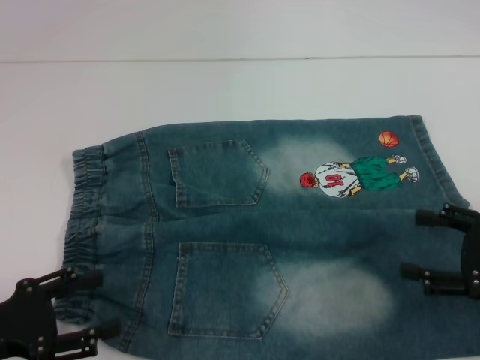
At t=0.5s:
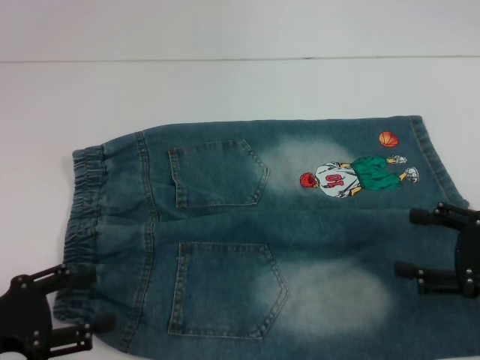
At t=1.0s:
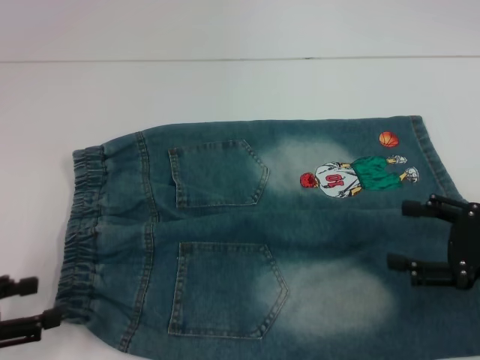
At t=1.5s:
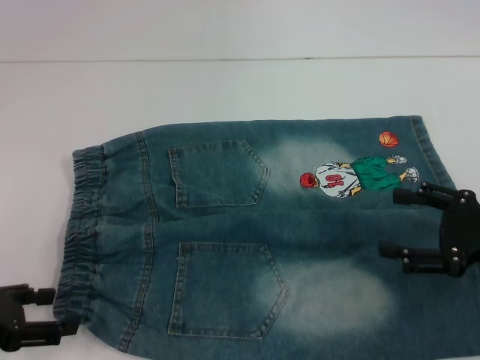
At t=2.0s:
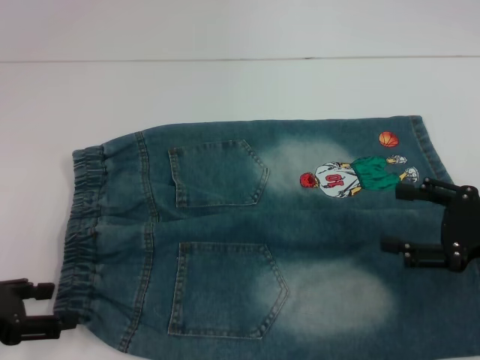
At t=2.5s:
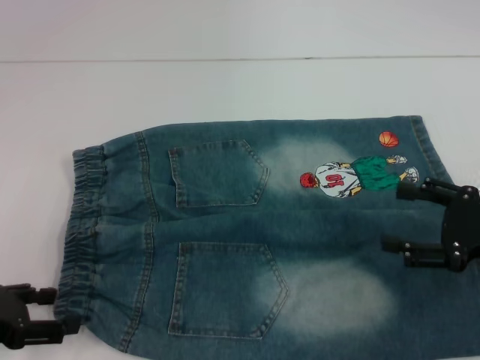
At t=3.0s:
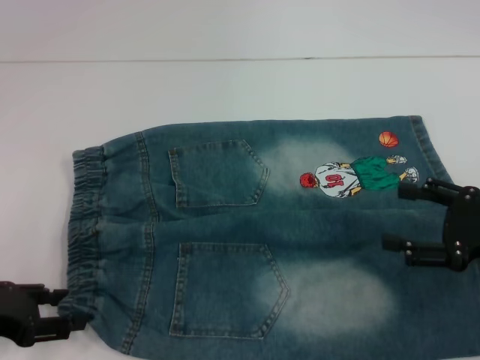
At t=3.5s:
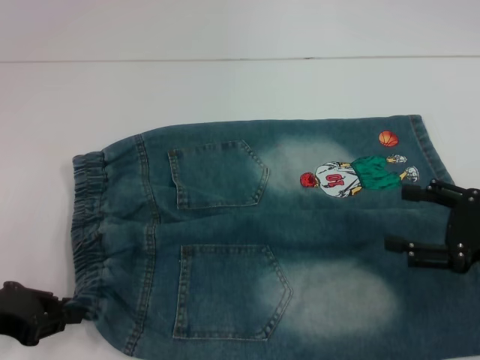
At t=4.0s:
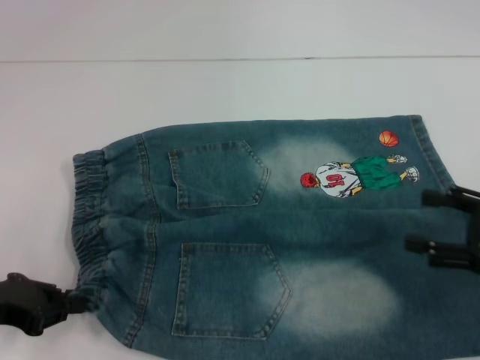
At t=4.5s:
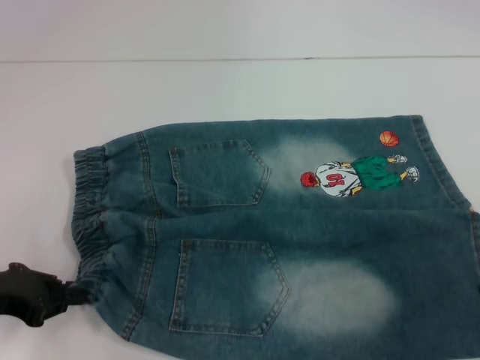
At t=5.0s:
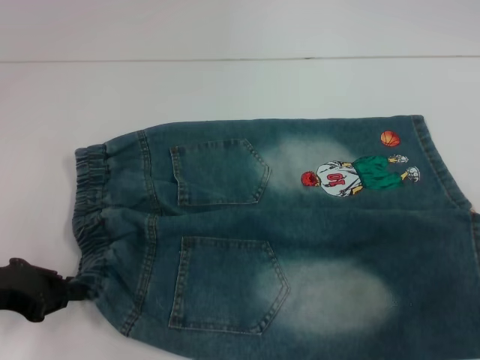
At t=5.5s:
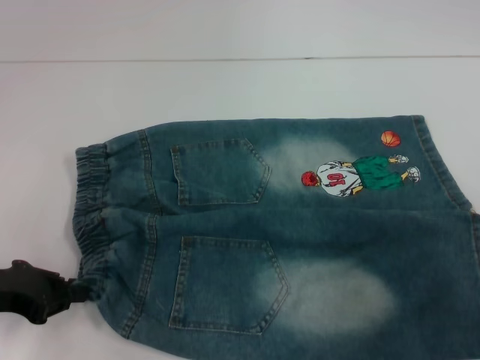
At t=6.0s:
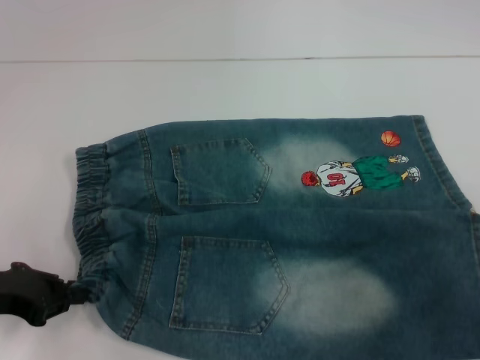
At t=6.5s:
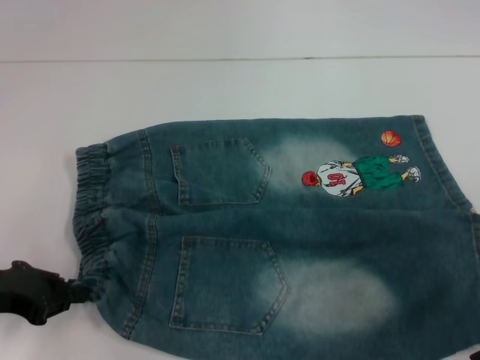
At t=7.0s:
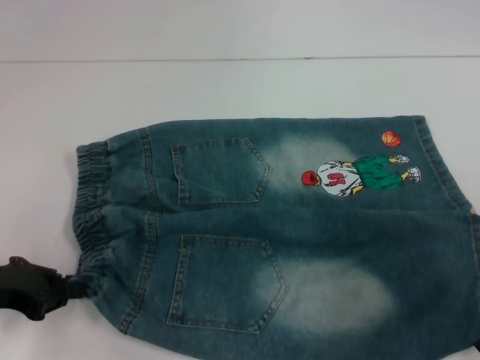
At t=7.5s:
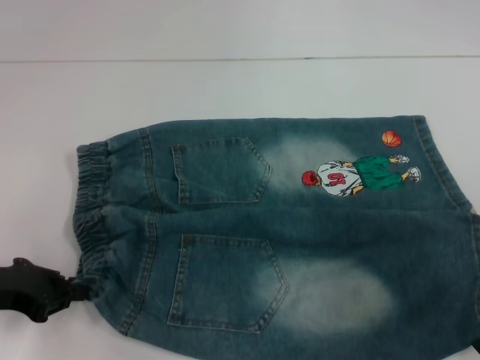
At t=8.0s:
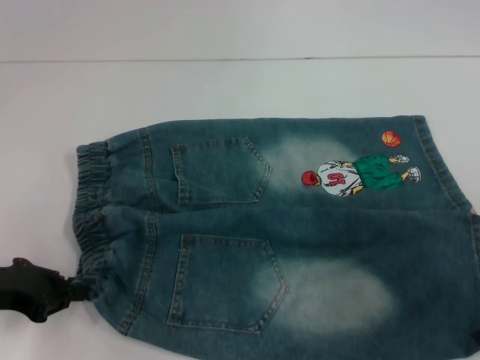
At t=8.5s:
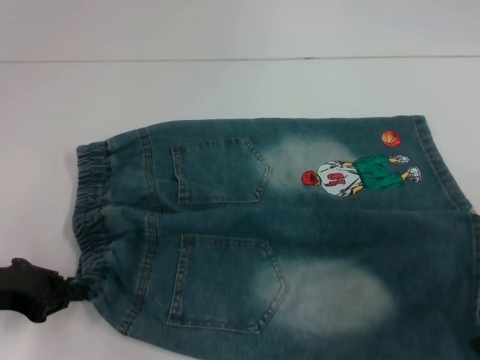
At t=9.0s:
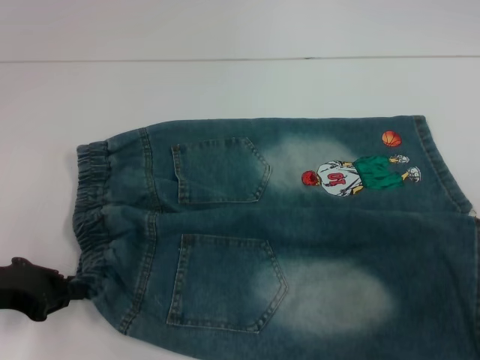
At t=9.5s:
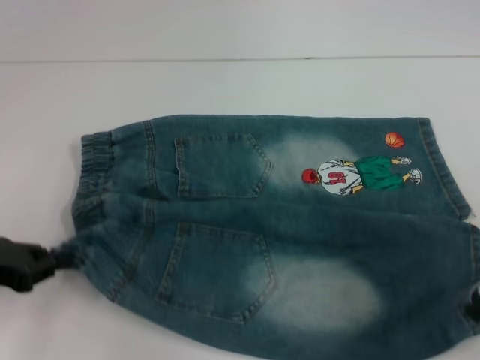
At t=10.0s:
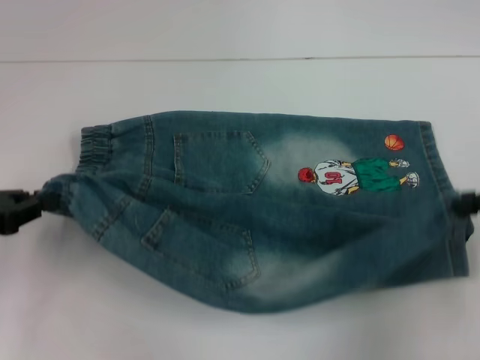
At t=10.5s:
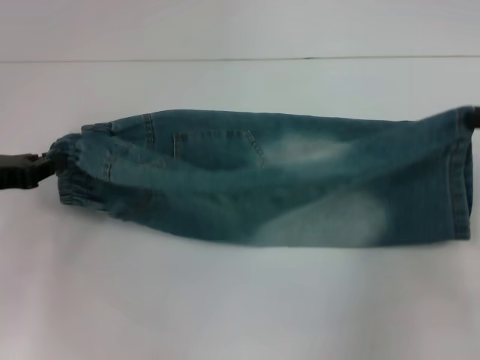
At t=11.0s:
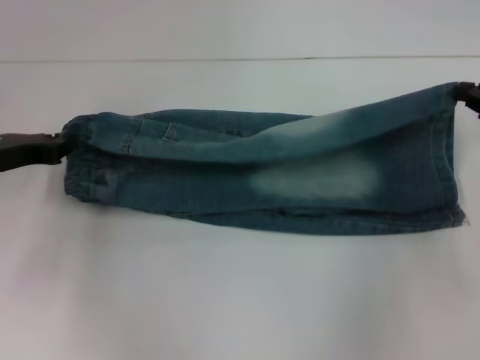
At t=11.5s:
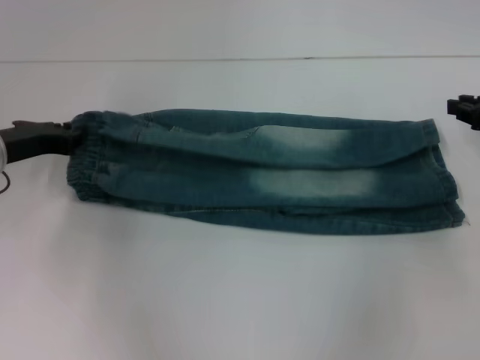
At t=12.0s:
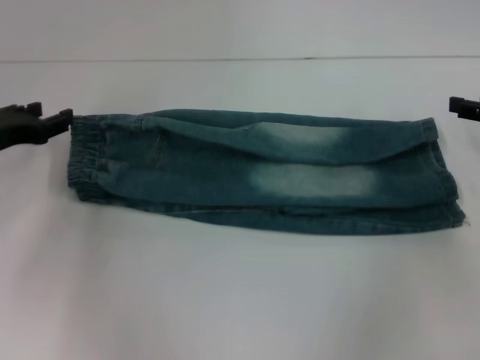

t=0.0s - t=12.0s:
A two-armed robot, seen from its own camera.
Step, t=0.0s - t=3.5s: Hold the lower left waistband with your left hand.
Step, t=4.0s - t=5.5s: Grab the lower right pant leg with your right hand.
Step, t=6.0s - t=11.0s: Fold upward with your right hand.
t=2.0s - t=4.0s: The left gripper closes its fingers.
t=6.0s - t=8.0s: The grippers make only small movements.
t=8.0s - t=10.0s: The left gripper moves approximately 5 cm. Meanwhile the right gripper closes up.
t=10.0s - t=12.0s: Both grippers travel together forward, about 10 cm. The right gripper opens.

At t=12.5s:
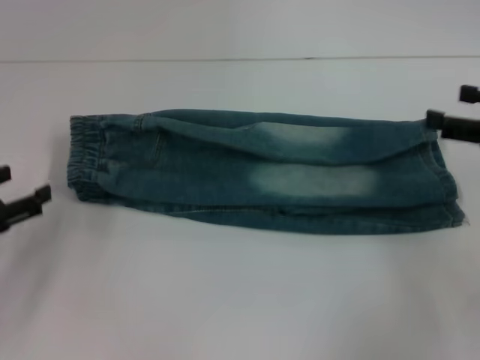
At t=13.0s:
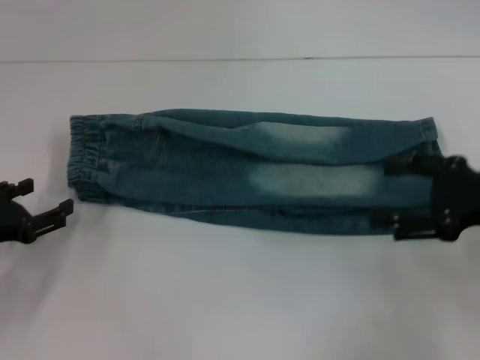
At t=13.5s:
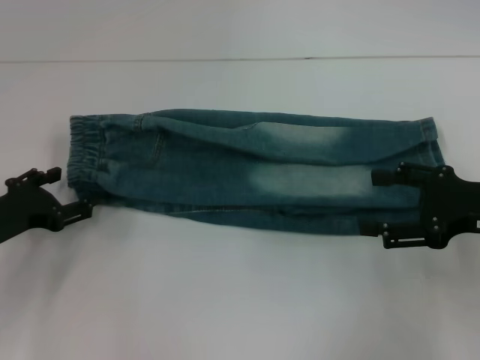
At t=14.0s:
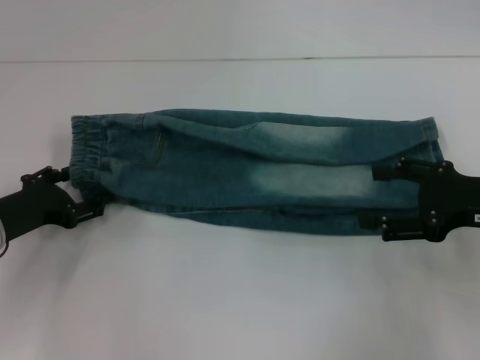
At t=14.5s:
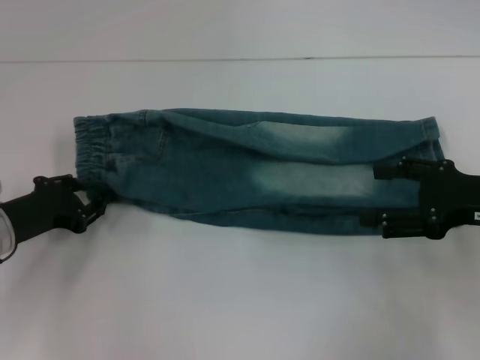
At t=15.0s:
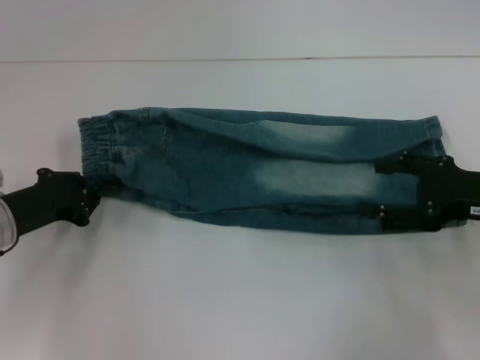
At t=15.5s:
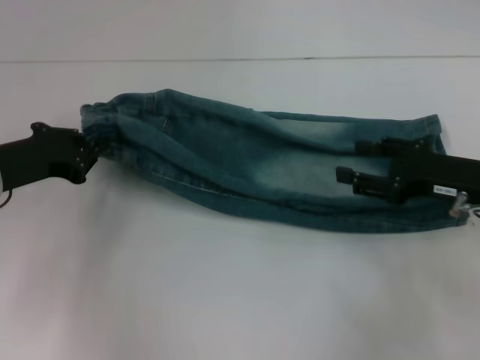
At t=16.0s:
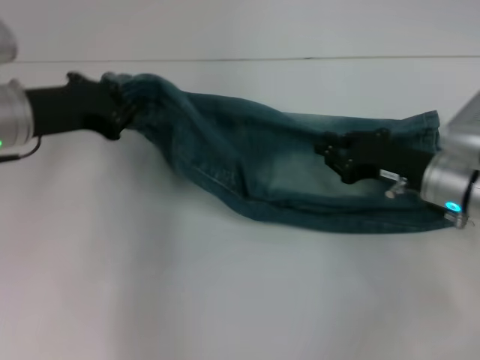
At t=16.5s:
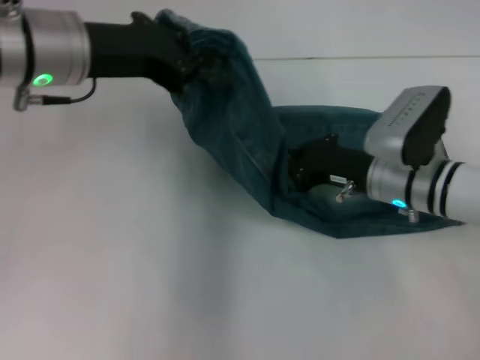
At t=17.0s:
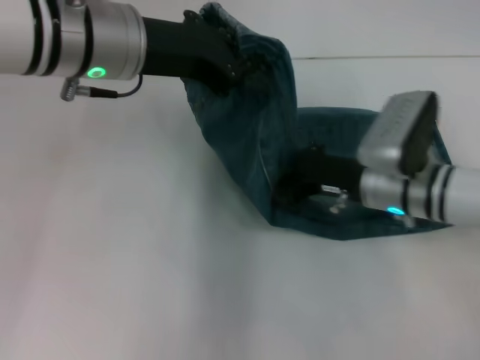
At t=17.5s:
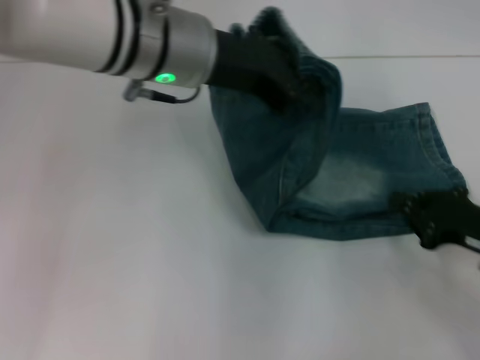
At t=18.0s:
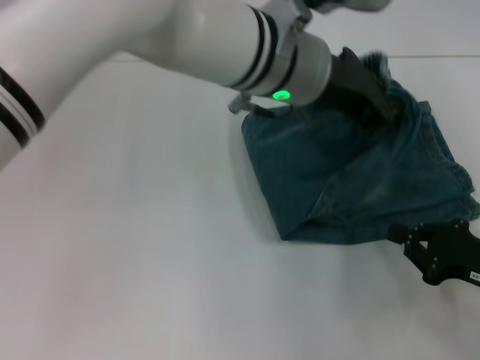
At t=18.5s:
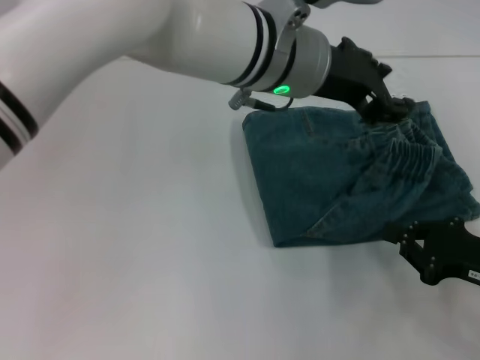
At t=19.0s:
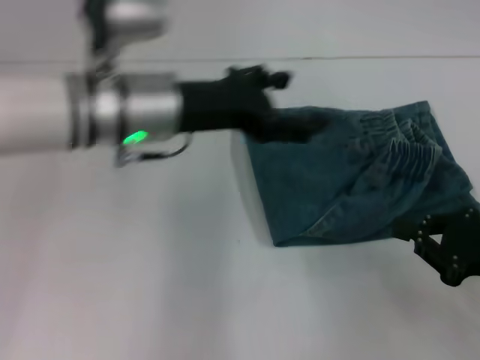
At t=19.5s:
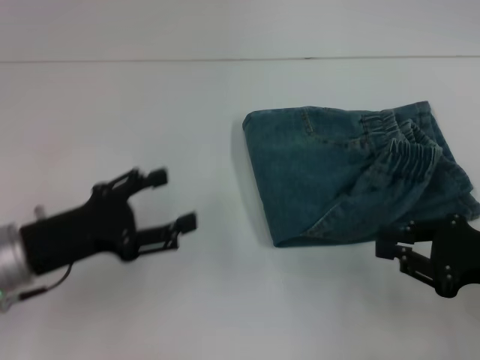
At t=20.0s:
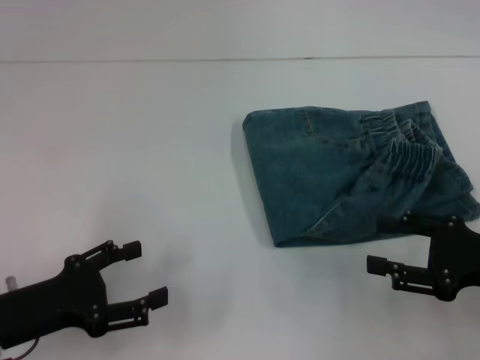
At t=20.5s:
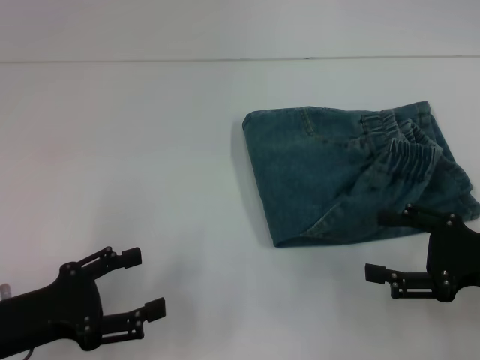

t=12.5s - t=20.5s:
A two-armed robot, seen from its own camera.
Step, t=12.5s - t=14.5s: Hold the waistband with your left hand.
Step, t=15.0s - t=17.0s: Press the middle of the pants with your right hand.
Step, t=17.5s - t=18.0s: Fold to the right with your left hand.
t=12.5s - t=14.5s: The left gripper shifts some 5 cm to the right. The right gripper ends up roughly 5 cm from where it was.
t=14.5s - t=16.5s: The right gripper heads to the left, forward and downward, covering about 15 cm, and closes its fingers. Meanwhile the left gripper heads upward and to the right, covering roughly 20 cm, and closes.
t=16.5s - t=18.5s: The right gripper goes some 20 cm to the right and backward; the left gripper shifts approximately 20 cm to the right, and opens up.
t=18.5s - t=20.5s: The right gripper opens. Meanwhile the left gripper moves to the left, backward and downward, roughly 35 cm, and opens its fingers.
